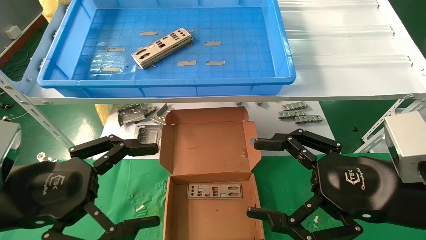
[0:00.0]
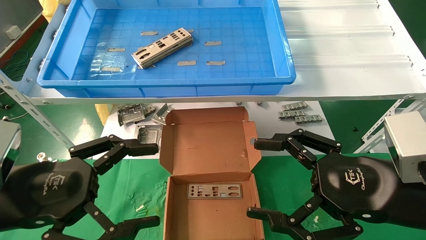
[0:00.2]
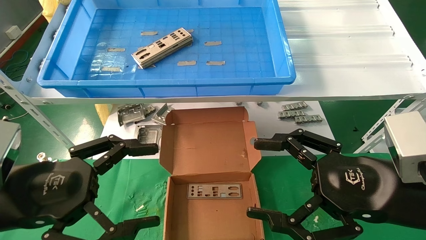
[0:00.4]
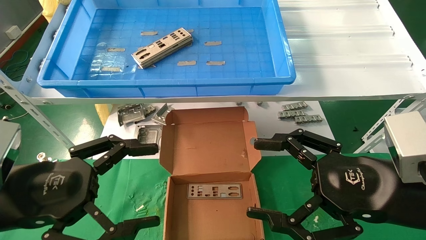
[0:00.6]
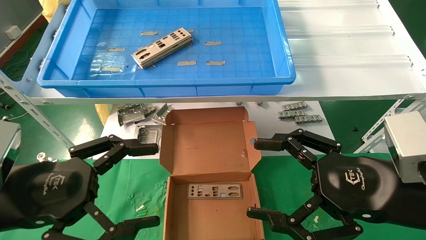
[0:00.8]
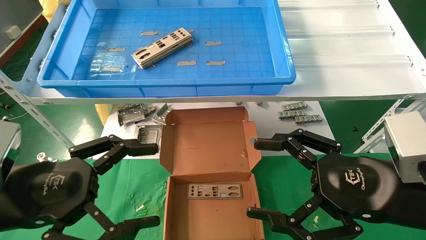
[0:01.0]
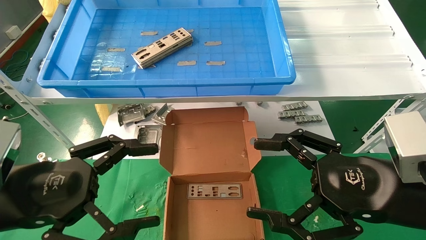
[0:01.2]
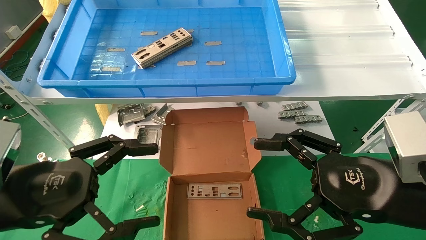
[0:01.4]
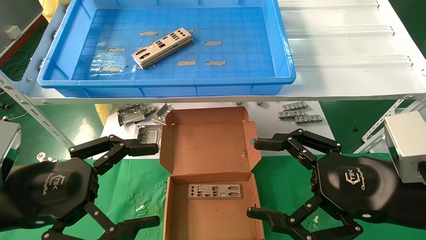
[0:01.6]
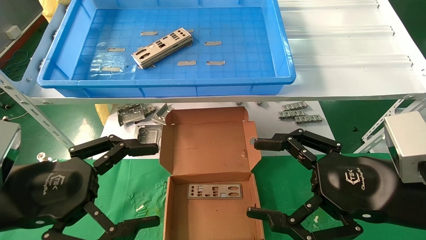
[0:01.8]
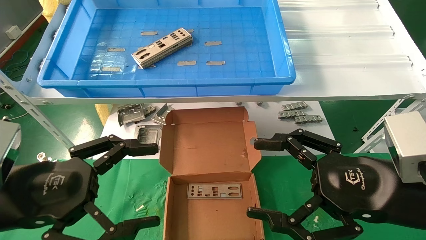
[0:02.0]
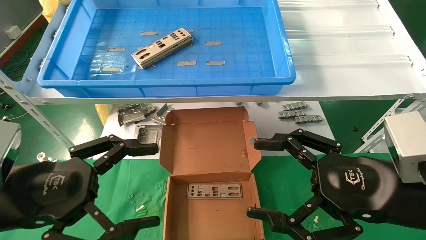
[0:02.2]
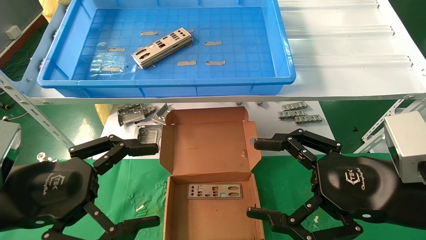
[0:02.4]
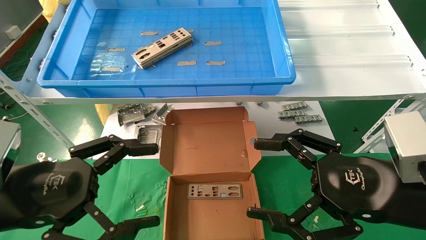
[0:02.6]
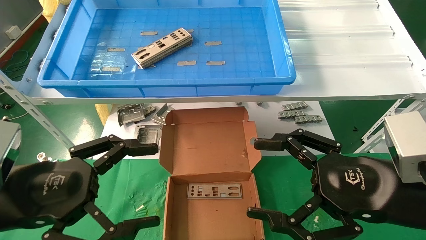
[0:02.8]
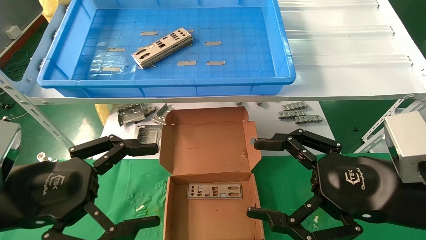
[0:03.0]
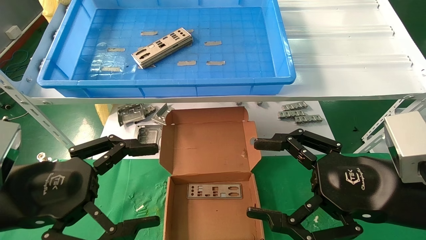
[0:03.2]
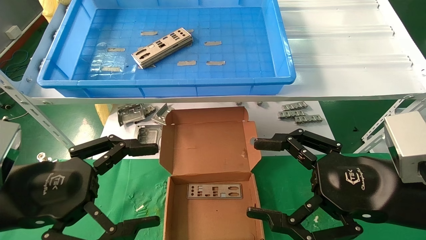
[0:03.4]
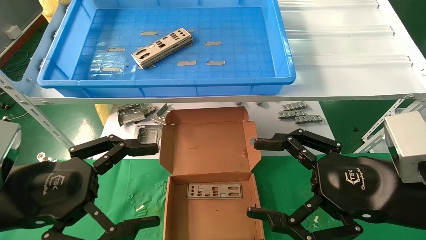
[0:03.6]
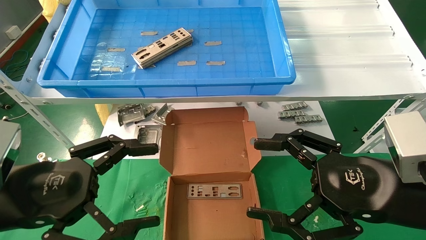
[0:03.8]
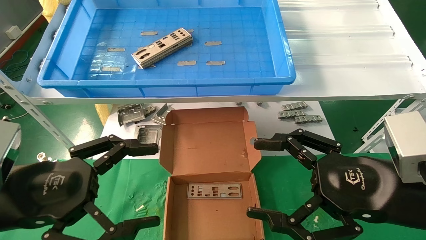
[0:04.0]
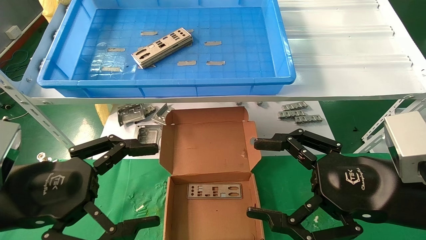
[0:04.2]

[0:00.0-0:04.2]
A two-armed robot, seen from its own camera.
Task of the whole recording: pick up the parts on the tray and put them in the cardboard box.
0:00.0 to 0:04.2: The two grippers keep their place.

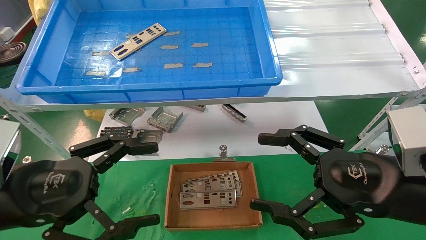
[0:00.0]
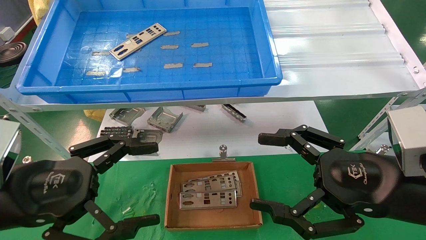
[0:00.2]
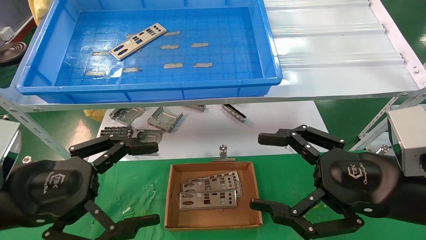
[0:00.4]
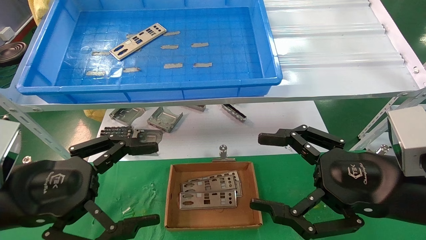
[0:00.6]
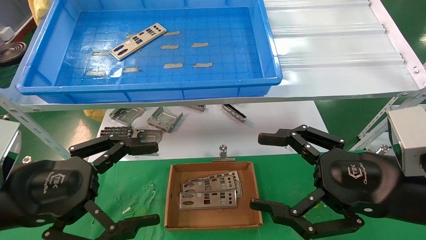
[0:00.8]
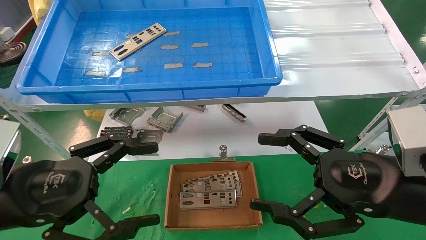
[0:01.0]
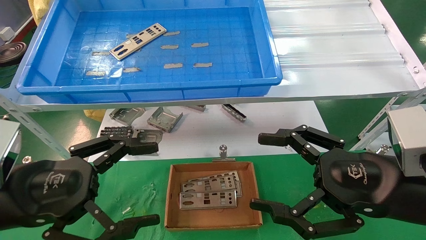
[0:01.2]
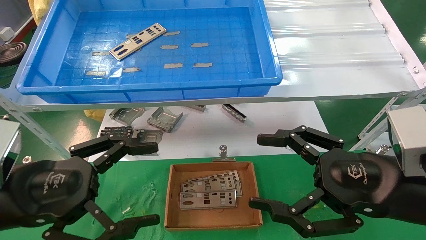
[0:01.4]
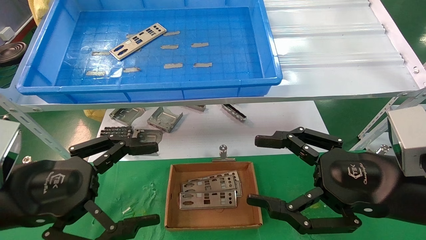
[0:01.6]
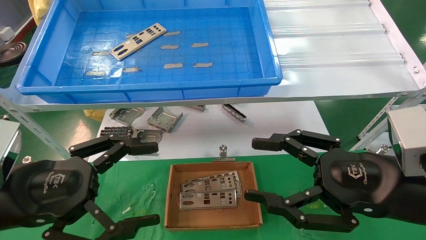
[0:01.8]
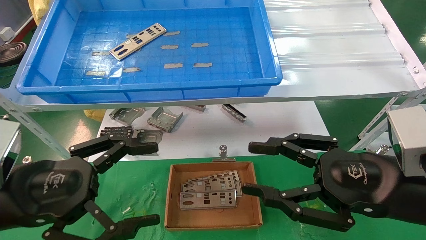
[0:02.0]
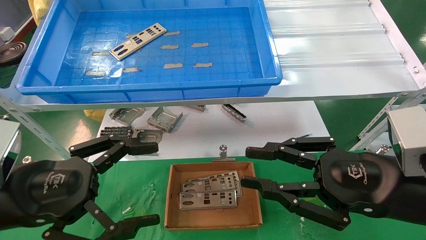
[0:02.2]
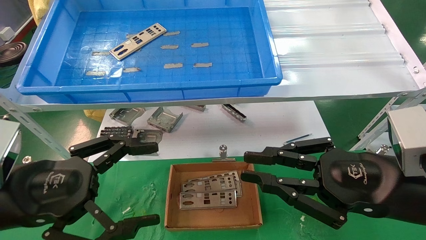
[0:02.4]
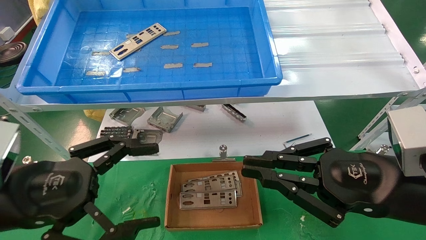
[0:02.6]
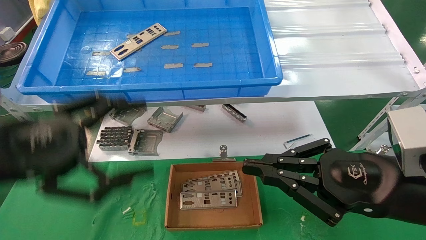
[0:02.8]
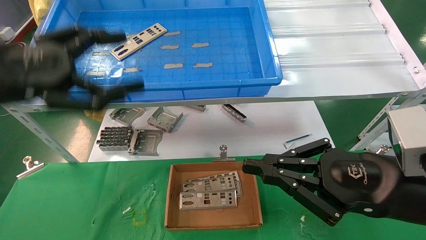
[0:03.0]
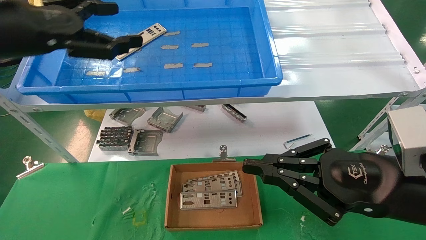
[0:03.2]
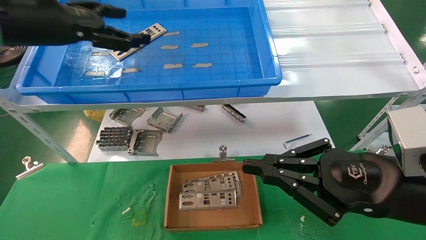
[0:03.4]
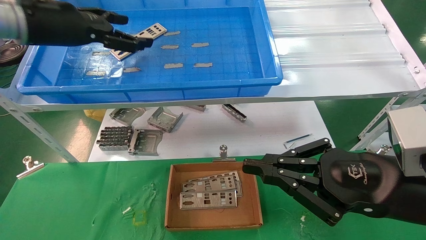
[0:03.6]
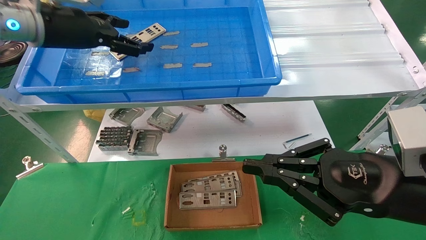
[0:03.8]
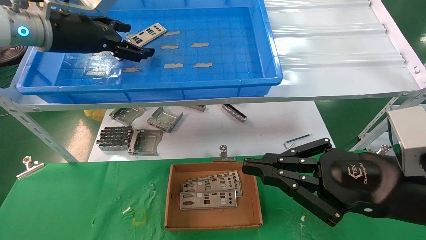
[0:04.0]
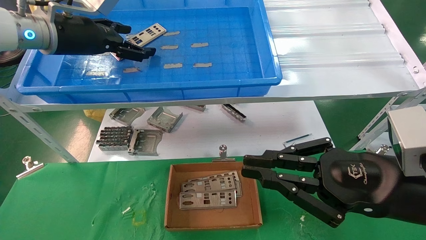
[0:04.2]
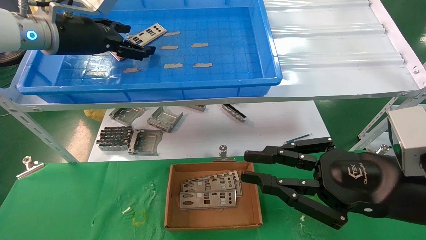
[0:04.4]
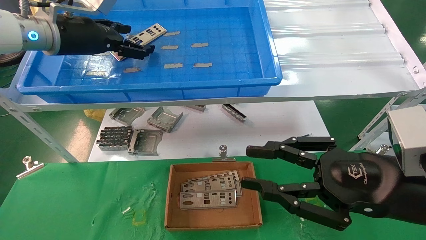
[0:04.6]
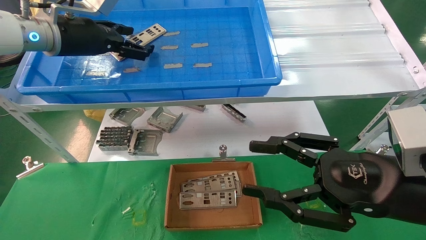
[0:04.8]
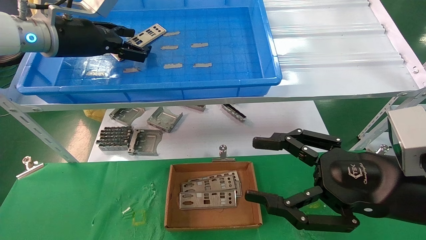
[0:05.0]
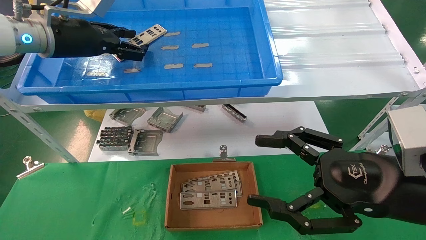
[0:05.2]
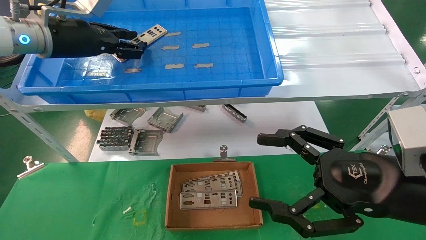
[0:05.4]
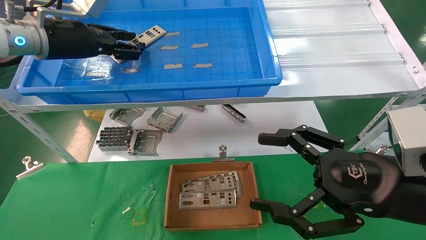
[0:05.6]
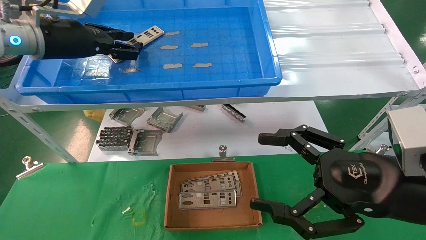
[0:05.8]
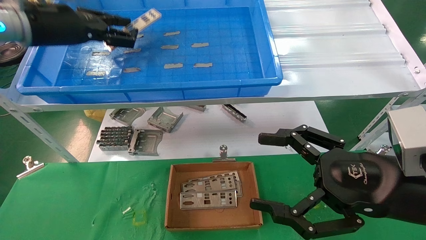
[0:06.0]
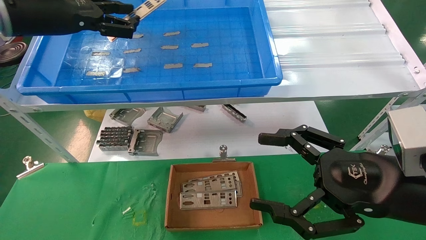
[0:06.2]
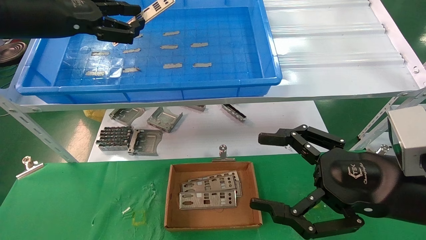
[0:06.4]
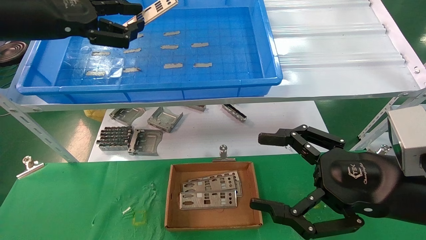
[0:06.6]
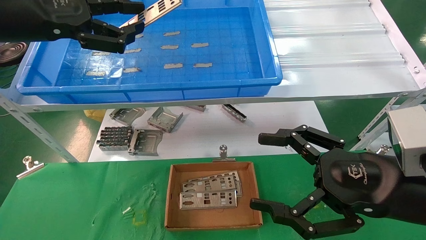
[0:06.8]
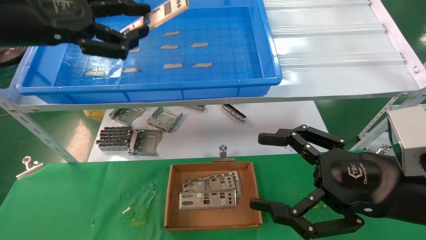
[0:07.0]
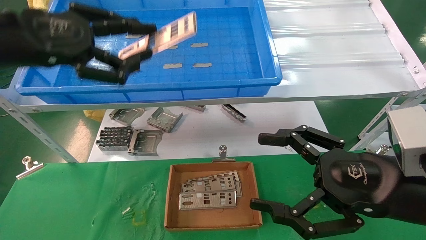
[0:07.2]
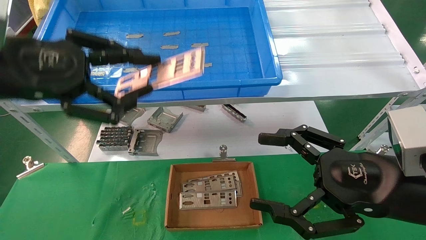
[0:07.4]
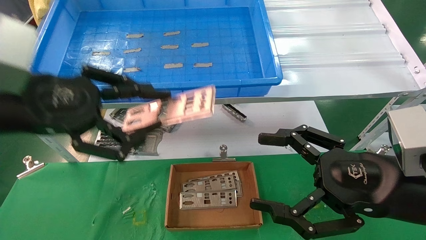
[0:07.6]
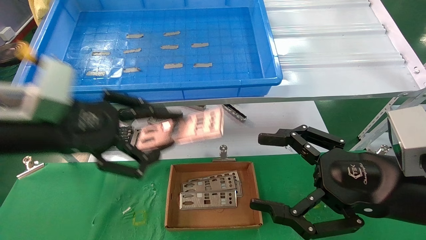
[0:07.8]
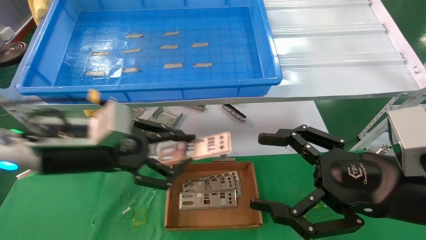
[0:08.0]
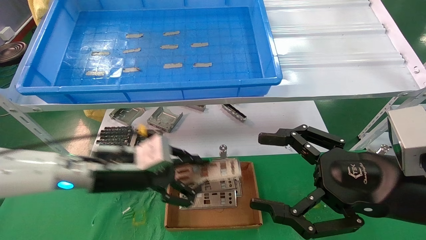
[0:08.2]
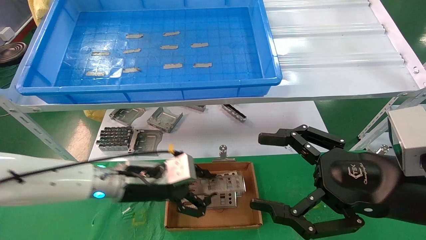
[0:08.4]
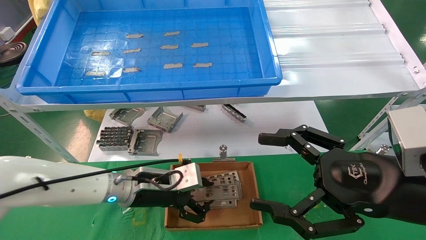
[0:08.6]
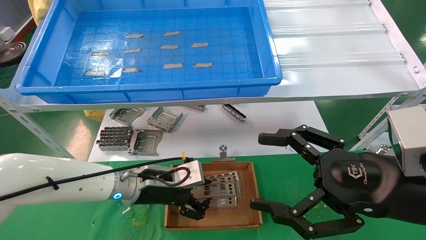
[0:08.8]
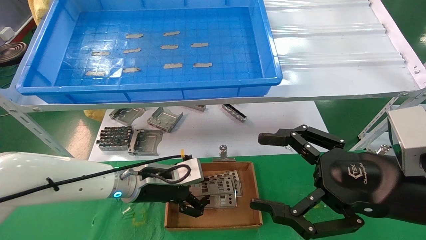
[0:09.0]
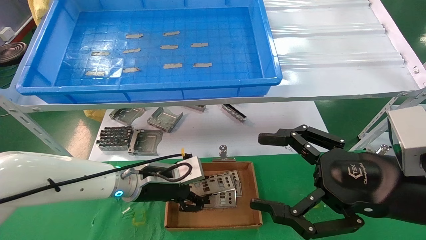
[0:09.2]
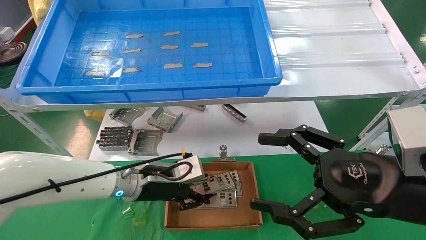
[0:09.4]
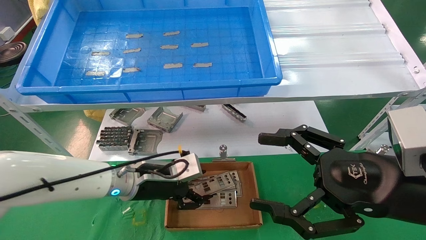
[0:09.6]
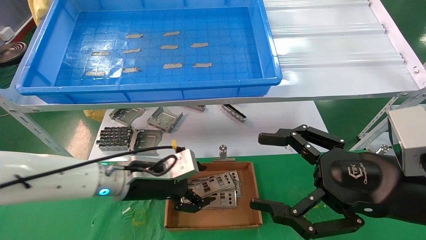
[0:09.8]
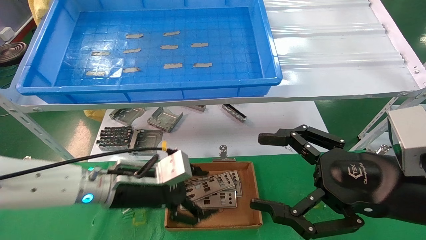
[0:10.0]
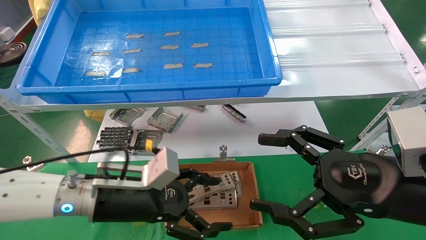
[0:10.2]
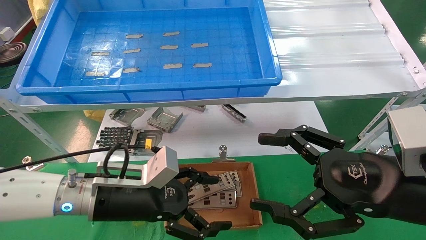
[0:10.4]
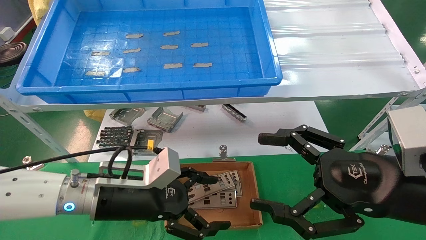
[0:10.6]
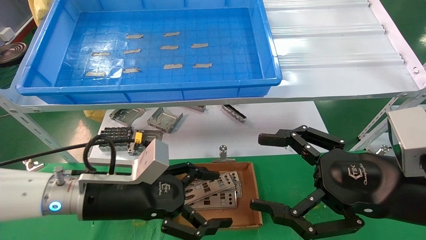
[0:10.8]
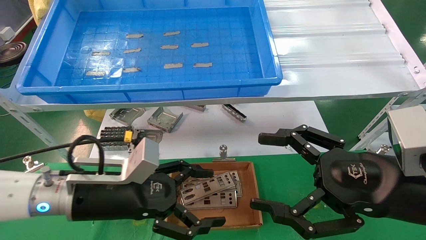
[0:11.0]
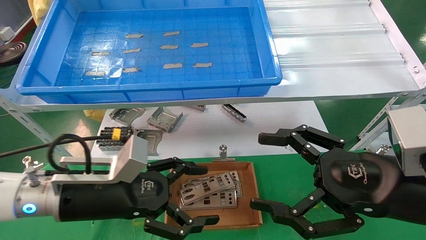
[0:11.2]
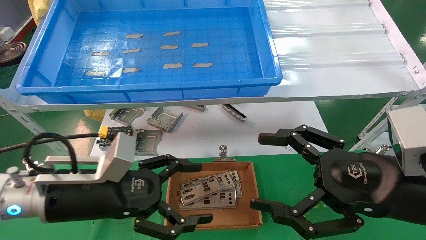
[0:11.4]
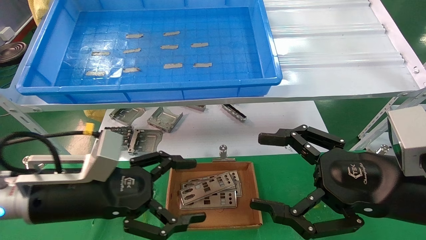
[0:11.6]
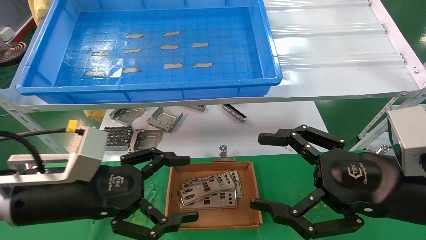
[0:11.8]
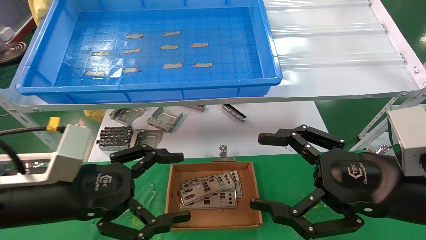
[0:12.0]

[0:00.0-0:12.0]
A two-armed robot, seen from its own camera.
Task of the whole recording: pick up the parts on the tray and put them in the cardboard box.
Step, 0:03.0 to 0:05.4: Pick up the IO bracket from the container box.
Step, 0:05.6 to 0:09.2: Place the IO bracket into the ingredient slot.
0:00.0 to 0:01.6: Both grippers stay about where they are.
0:01.6 to 0:03.0: The right gripper closes its fingers. Meanwhile the left gripper travels upward by roughly 15 cm.
0:03.0 to 0:04.4: The left gripper shifts some 15 cm forward.
0:04.4 to 0:06.0: The left gripper closes up, while the right gripper opens up.
0:06.0 to 0:07.6: The left gripper travels backward and downward by some 20 cm.
0:07.6 to 0:09.0: The left gripper is displaced downward, forward and to the right by roughly 25 cm.
0:09.0 to 0:10.4: The left gripper is displaced backward by some 10 cm, and opens its fingers.
0:10.4 to 0:12.0: The left gripper shifts about 10 cm to the left and backward.
